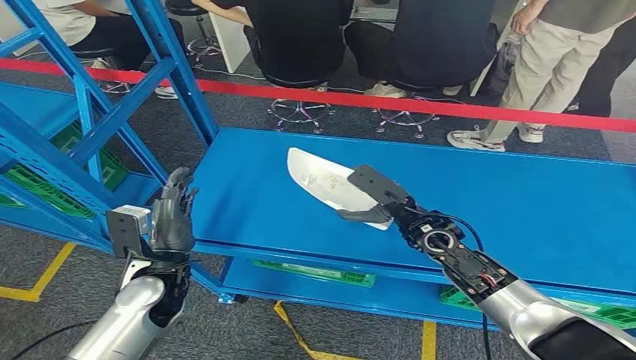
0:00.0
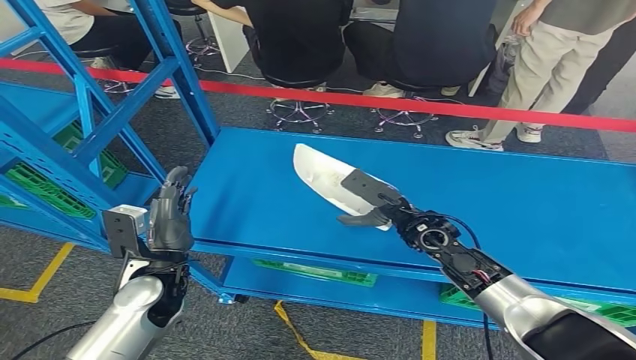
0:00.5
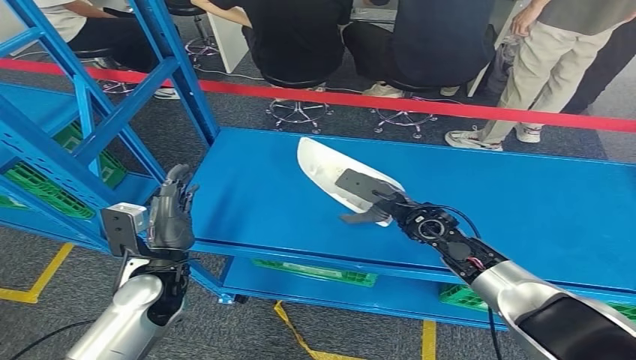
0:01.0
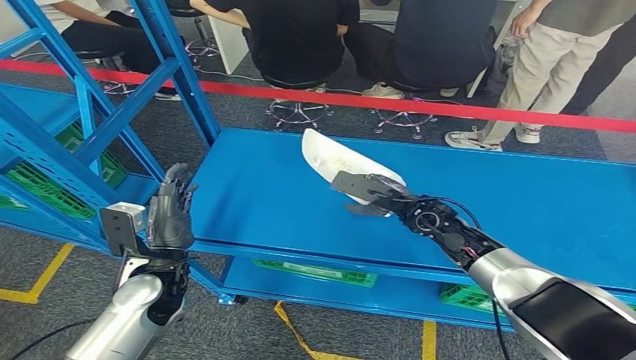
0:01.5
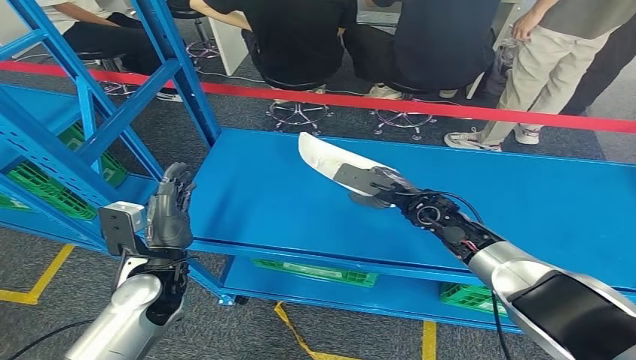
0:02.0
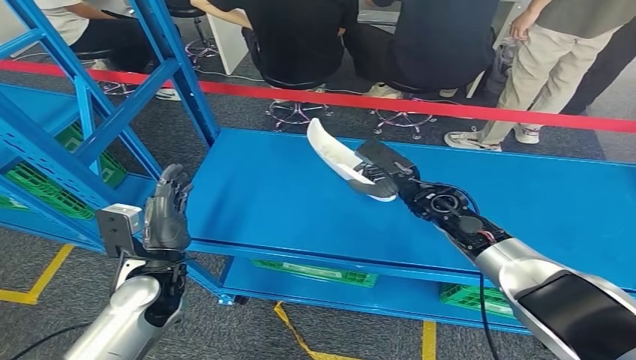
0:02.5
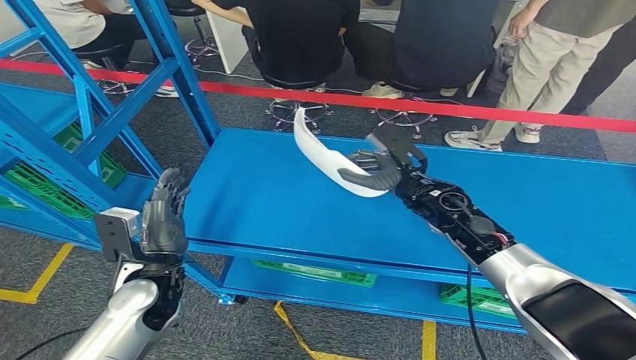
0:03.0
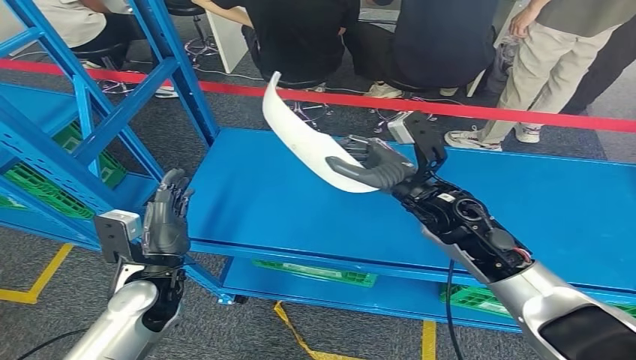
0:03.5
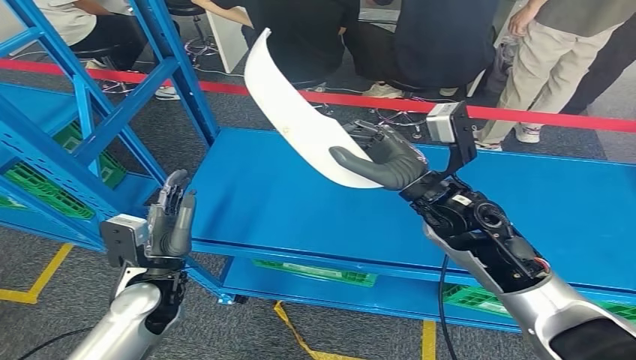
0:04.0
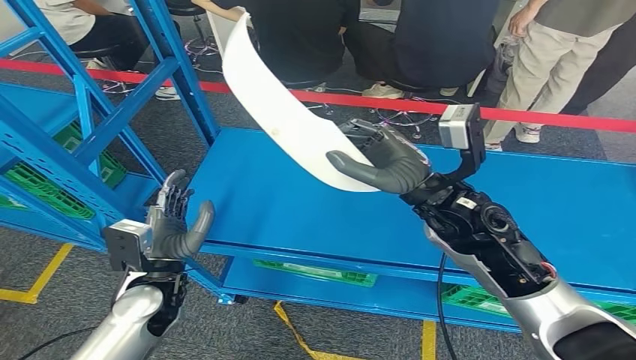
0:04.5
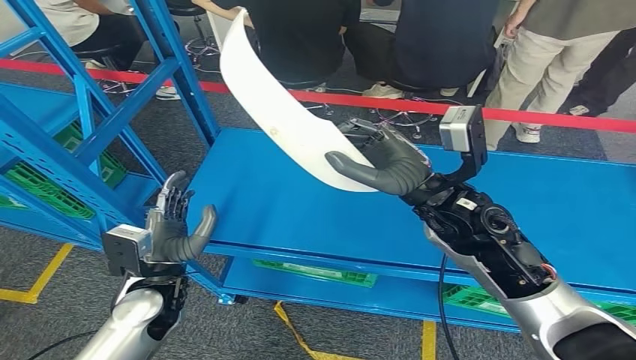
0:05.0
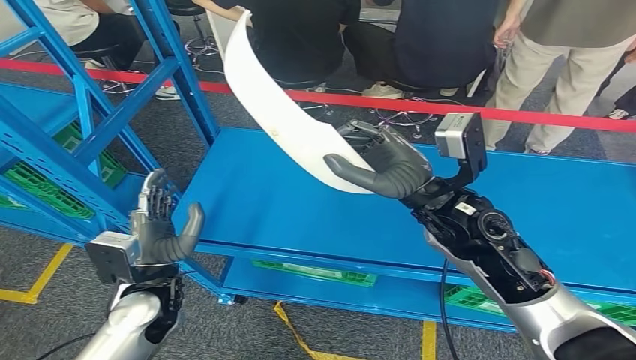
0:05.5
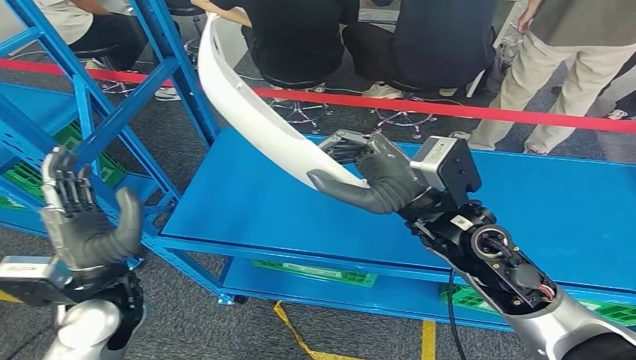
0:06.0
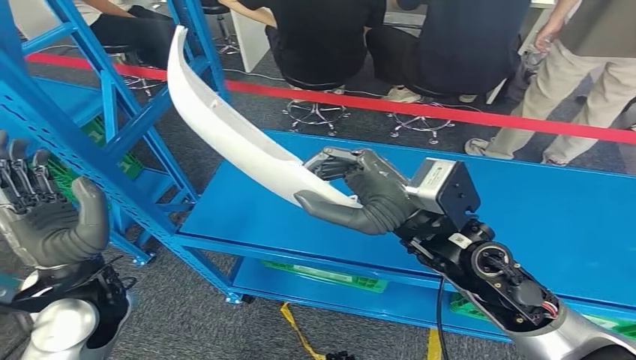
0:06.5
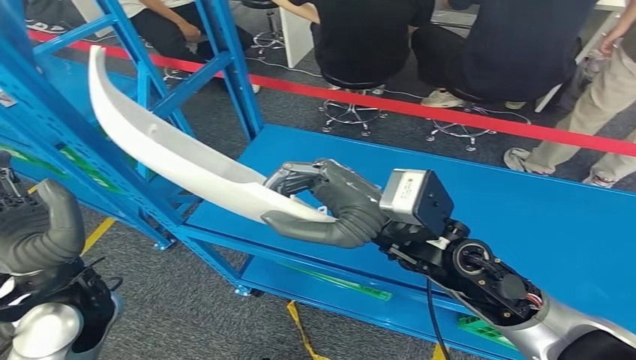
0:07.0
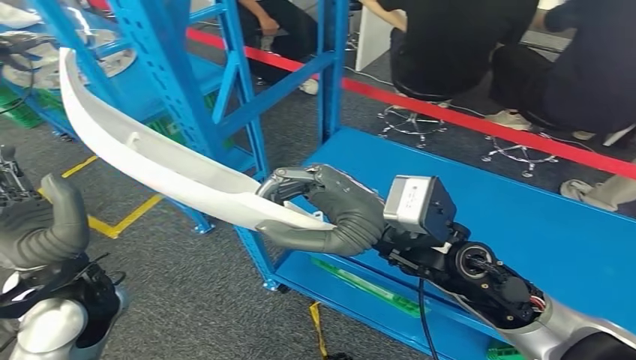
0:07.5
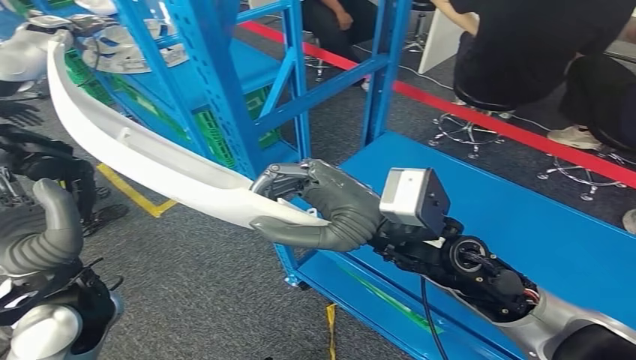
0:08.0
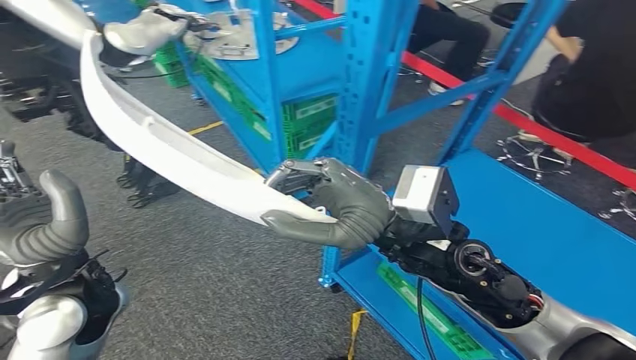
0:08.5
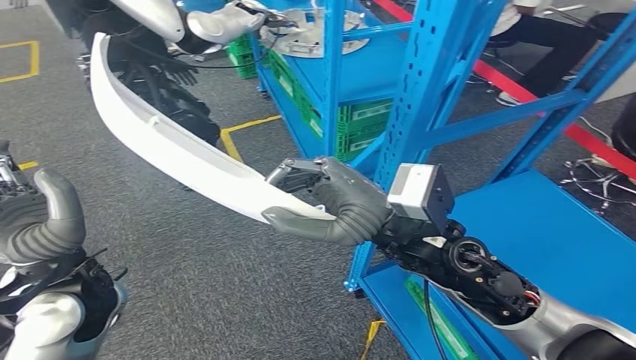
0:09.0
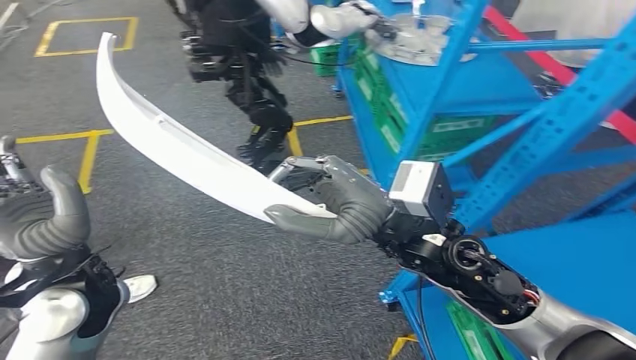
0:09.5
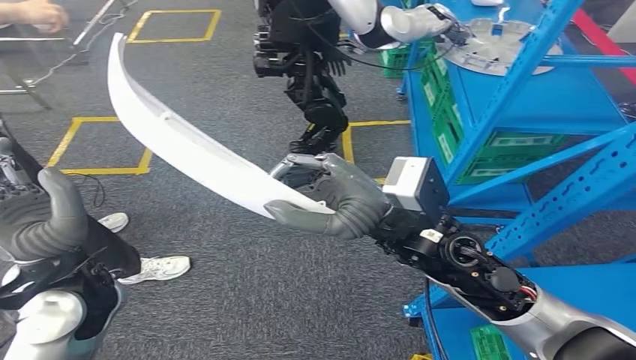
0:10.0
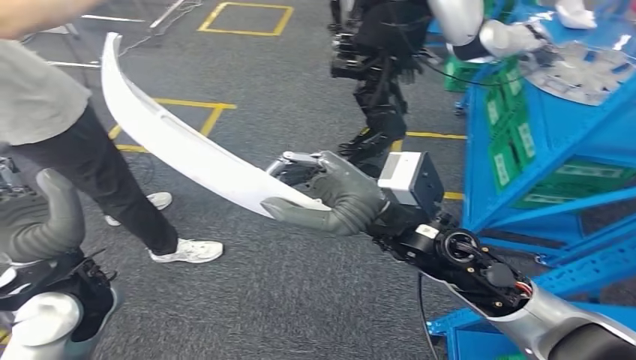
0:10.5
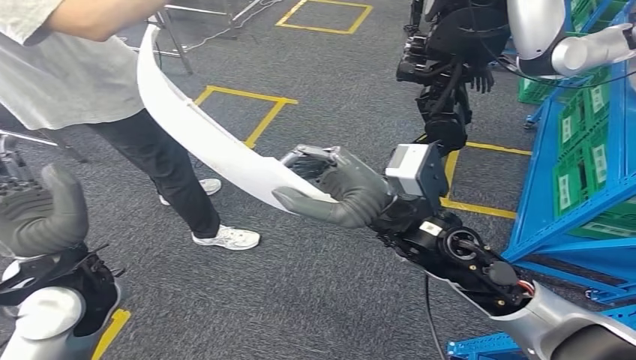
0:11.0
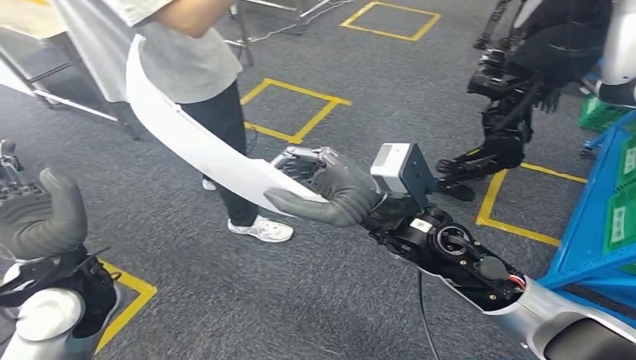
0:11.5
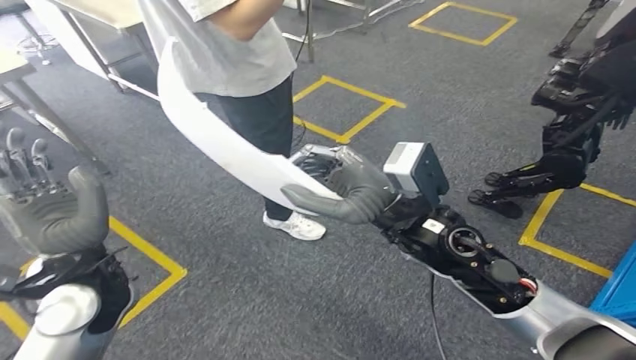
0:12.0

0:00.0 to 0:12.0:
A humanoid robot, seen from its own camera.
Step, 0:00.0 to 0:06.0: Pick up the small parts from the shelf.

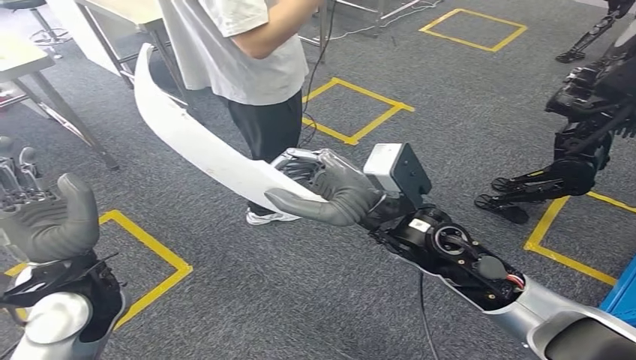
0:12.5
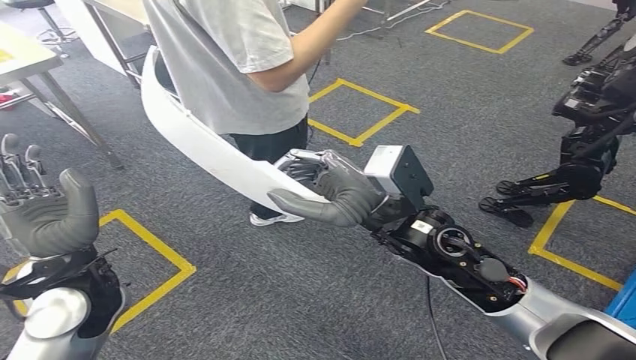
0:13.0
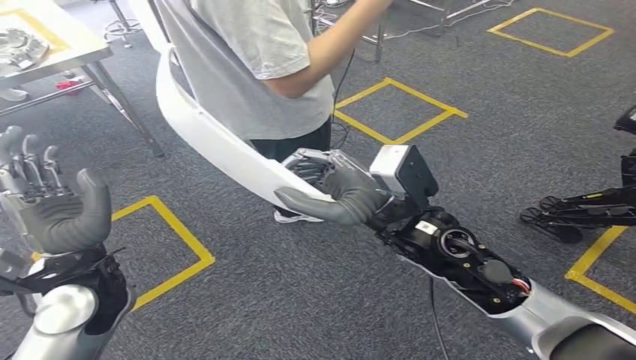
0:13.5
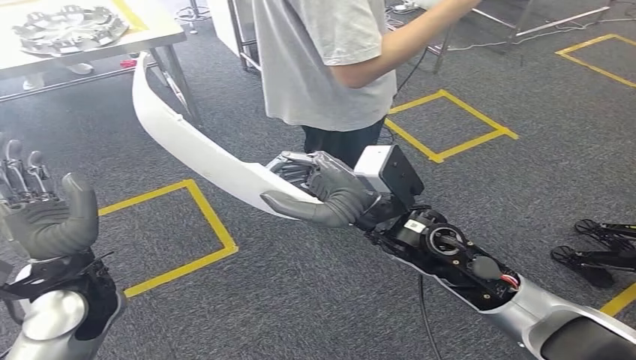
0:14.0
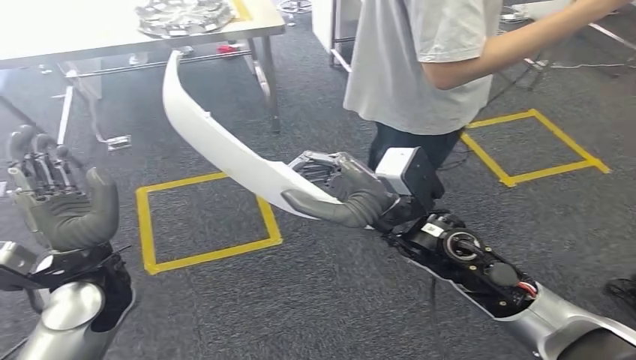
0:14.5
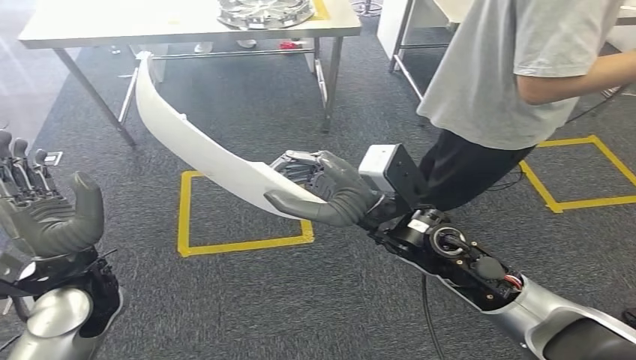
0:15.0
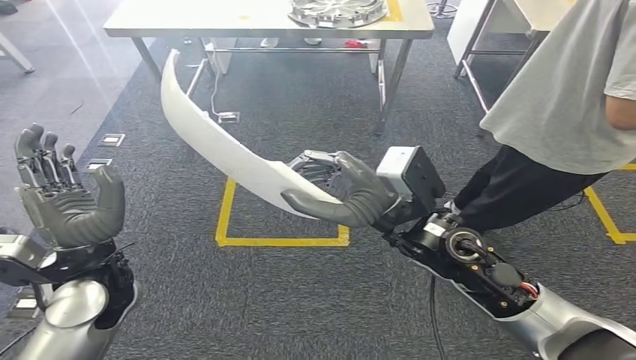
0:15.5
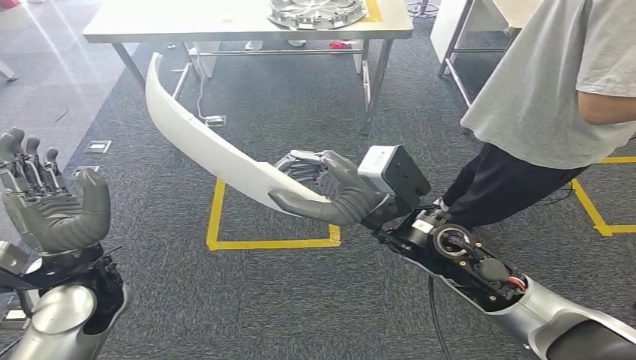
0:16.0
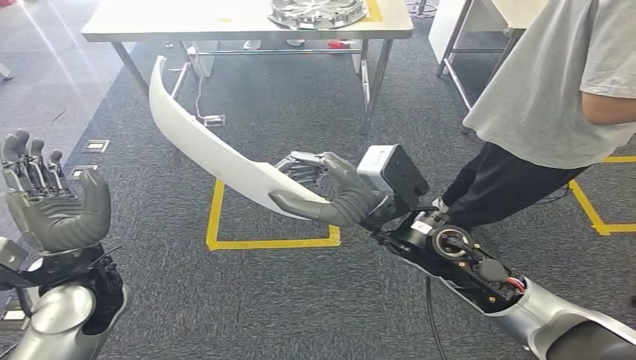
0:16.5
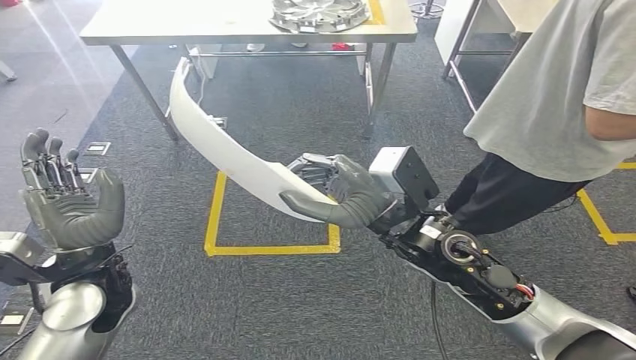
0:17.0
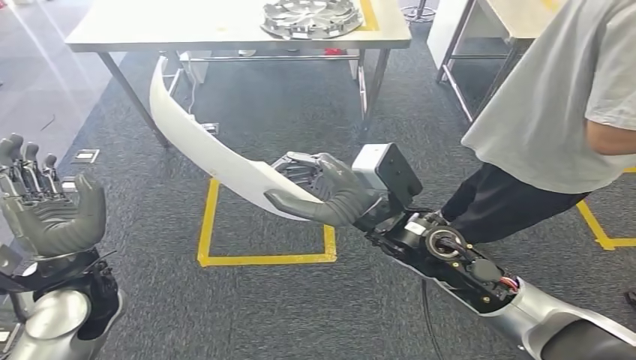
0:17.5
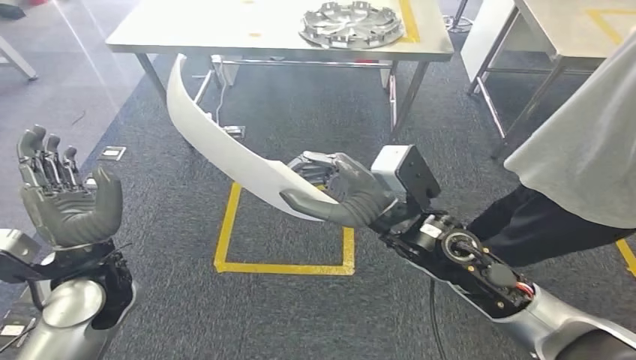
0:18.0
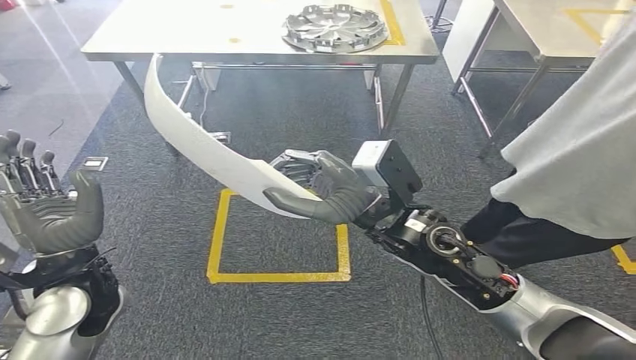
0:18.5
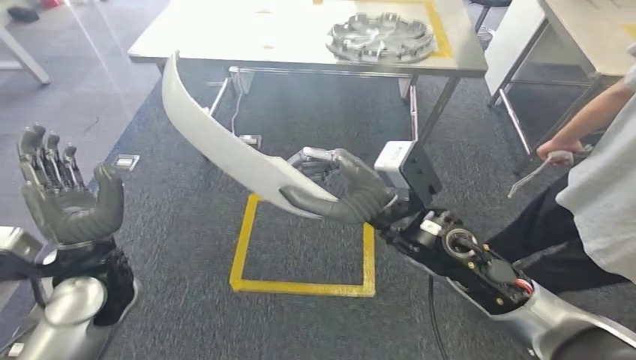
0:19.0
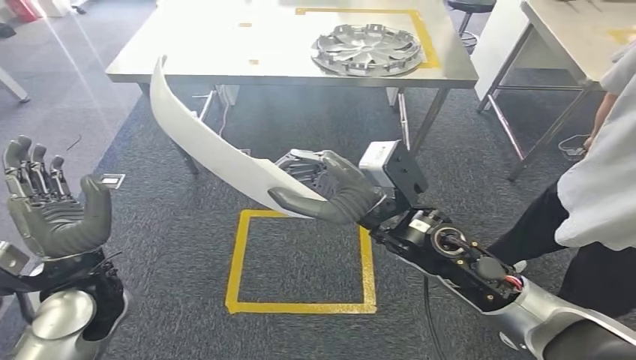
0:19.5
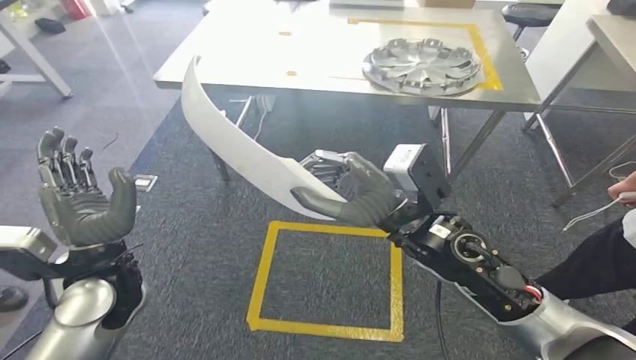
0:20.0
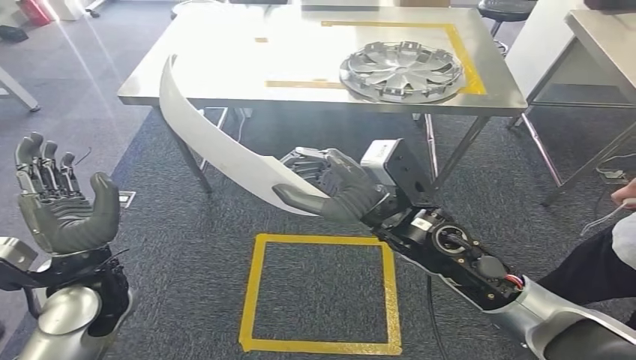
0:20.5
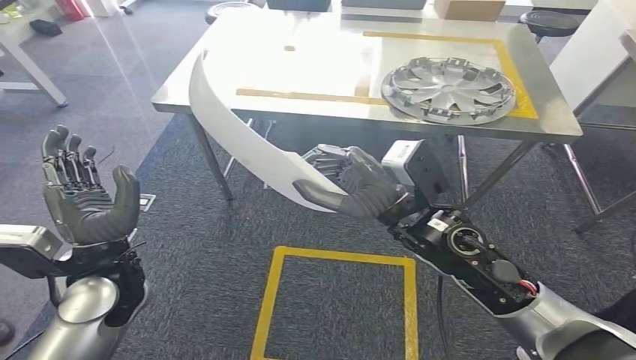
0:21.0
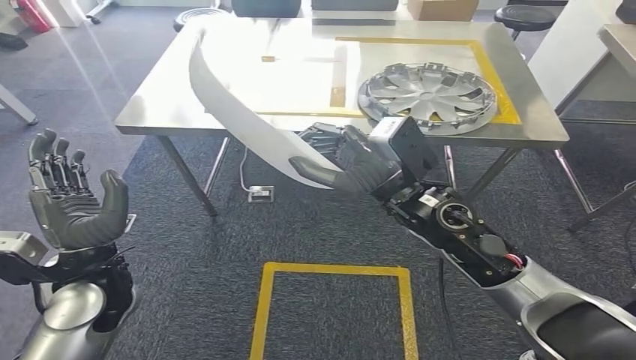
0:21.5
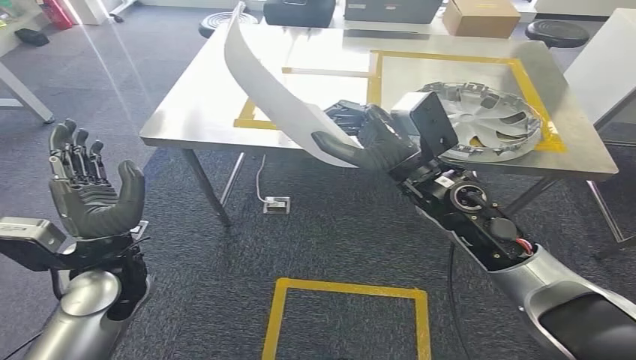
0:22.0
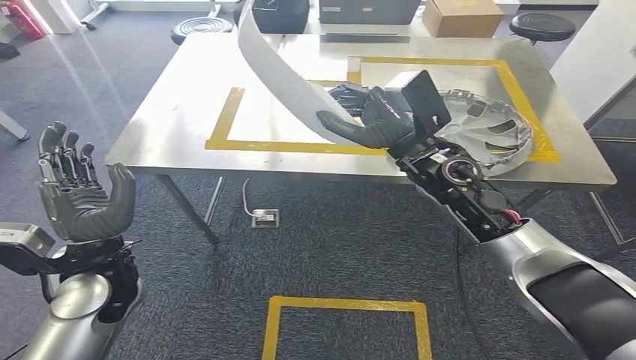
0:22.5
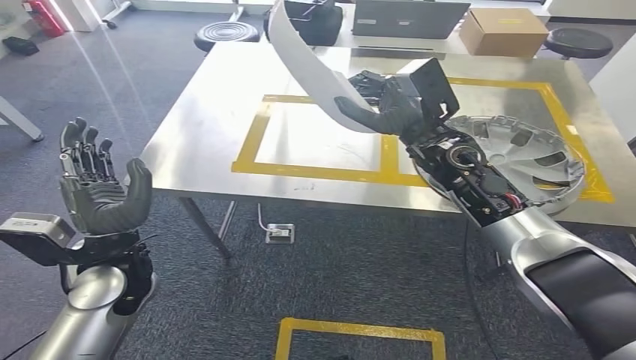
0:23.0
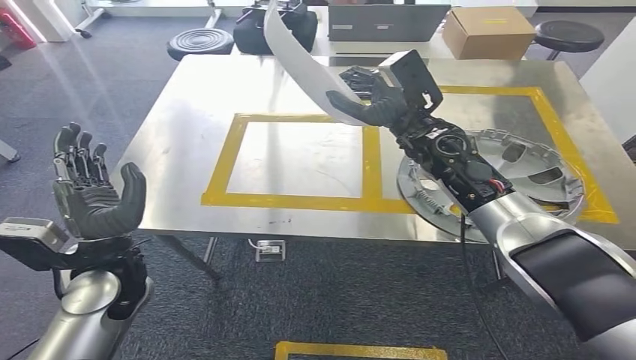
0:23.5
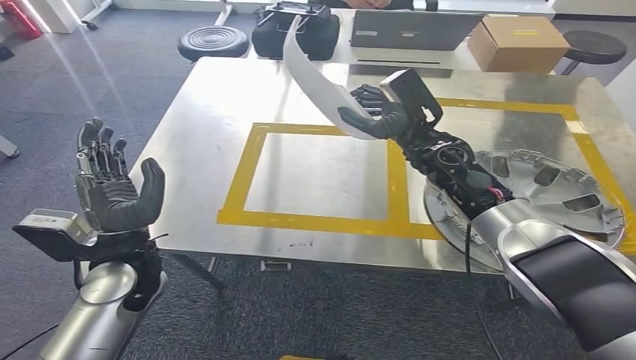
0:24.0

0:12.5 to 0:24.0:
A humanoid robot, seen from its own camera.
Step, 0:12.5 to 0:22.5: Move the small parts to the workbench.
